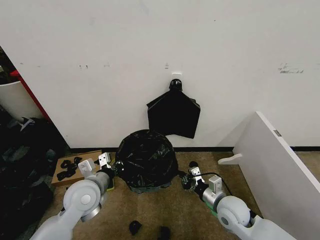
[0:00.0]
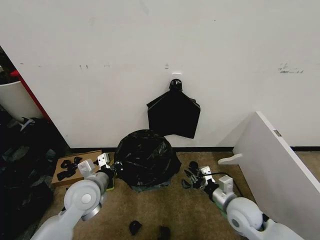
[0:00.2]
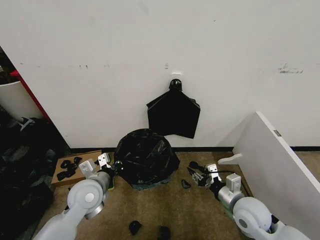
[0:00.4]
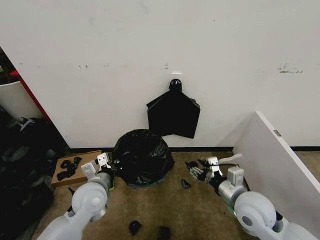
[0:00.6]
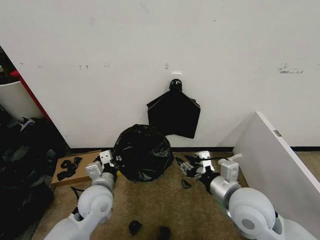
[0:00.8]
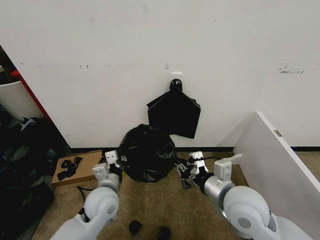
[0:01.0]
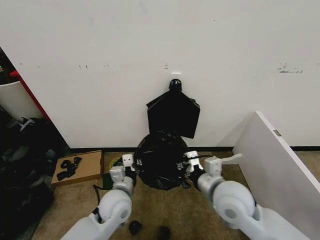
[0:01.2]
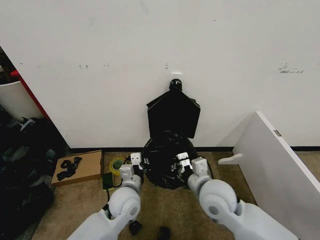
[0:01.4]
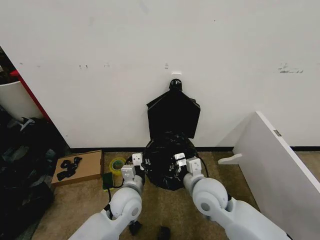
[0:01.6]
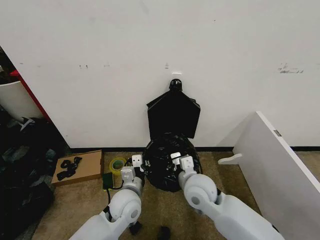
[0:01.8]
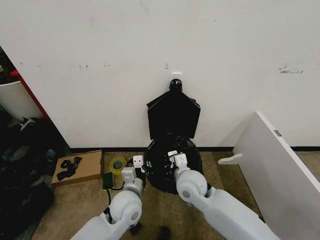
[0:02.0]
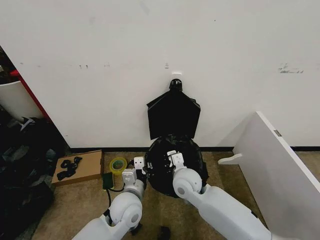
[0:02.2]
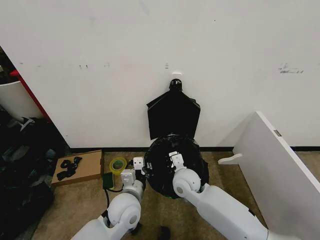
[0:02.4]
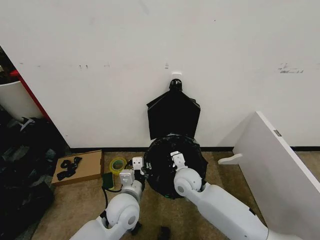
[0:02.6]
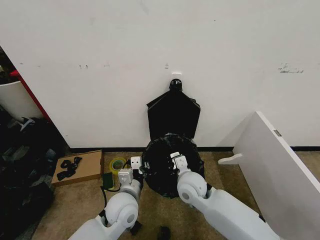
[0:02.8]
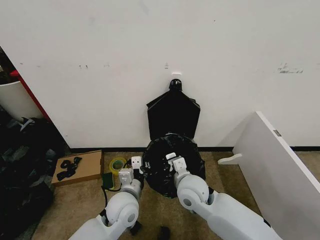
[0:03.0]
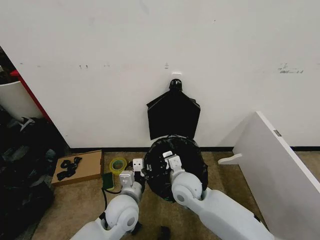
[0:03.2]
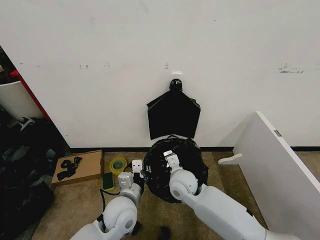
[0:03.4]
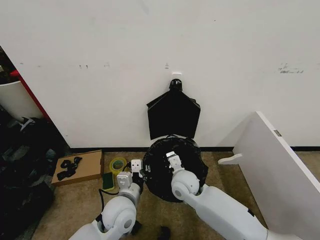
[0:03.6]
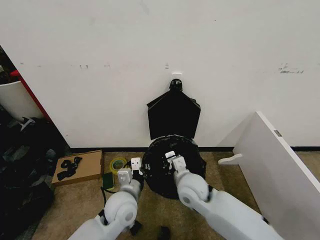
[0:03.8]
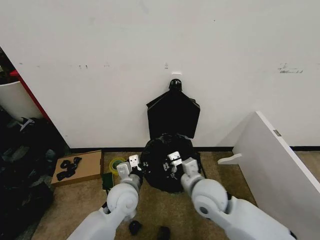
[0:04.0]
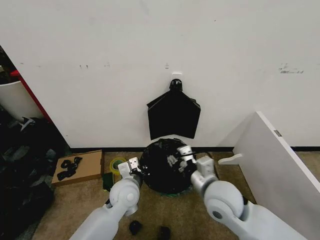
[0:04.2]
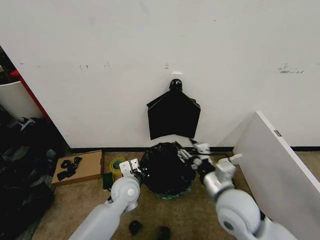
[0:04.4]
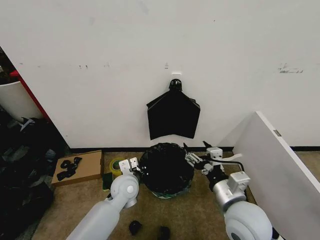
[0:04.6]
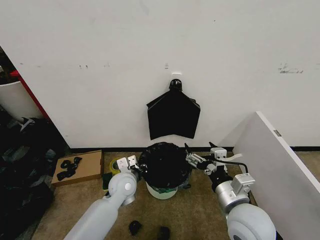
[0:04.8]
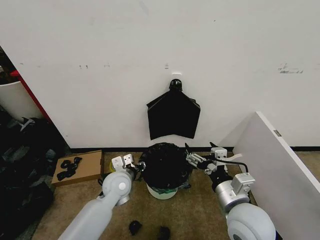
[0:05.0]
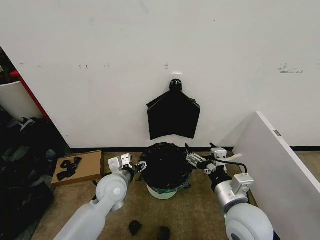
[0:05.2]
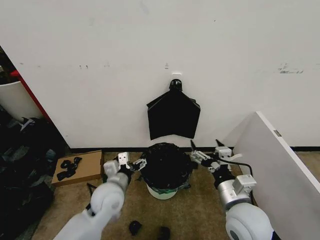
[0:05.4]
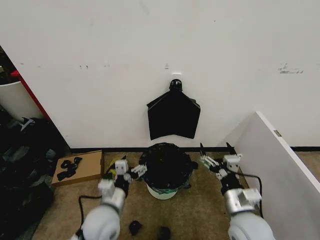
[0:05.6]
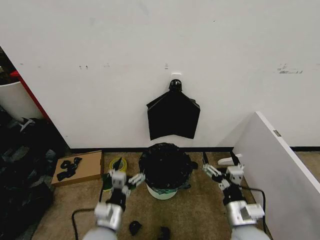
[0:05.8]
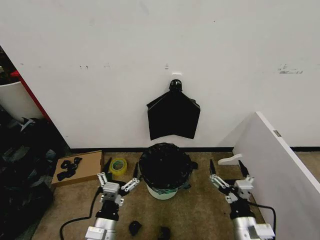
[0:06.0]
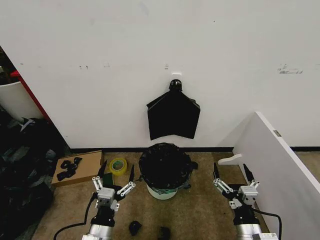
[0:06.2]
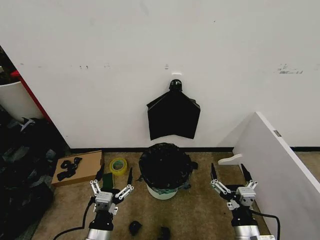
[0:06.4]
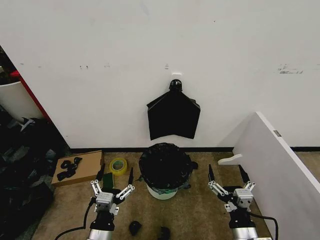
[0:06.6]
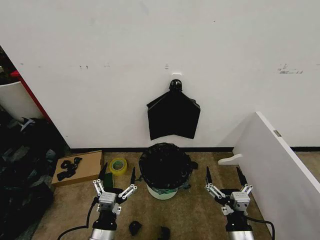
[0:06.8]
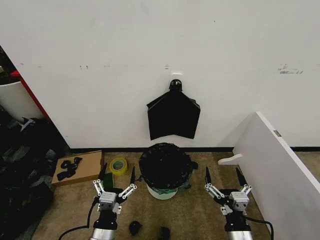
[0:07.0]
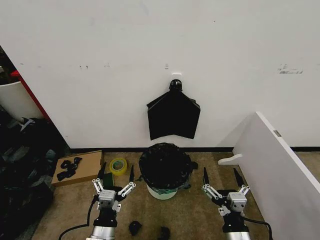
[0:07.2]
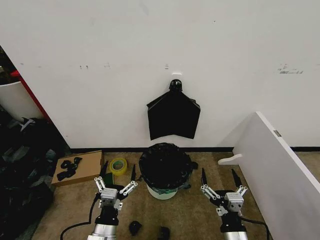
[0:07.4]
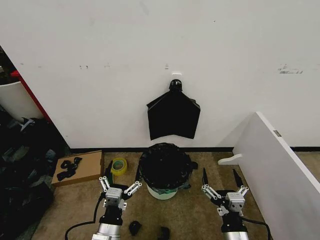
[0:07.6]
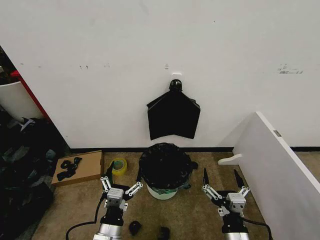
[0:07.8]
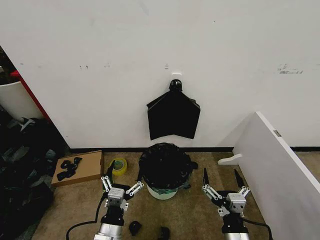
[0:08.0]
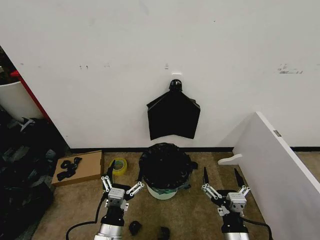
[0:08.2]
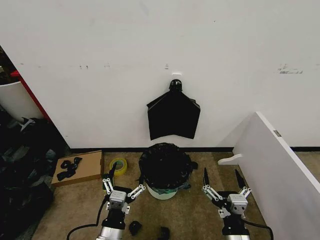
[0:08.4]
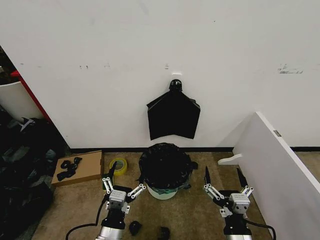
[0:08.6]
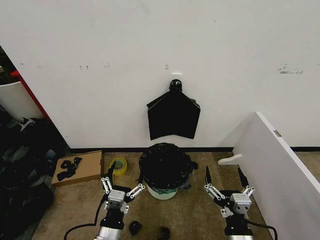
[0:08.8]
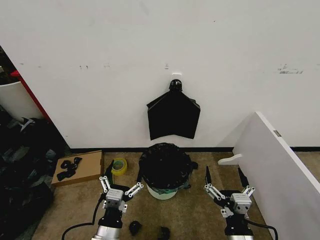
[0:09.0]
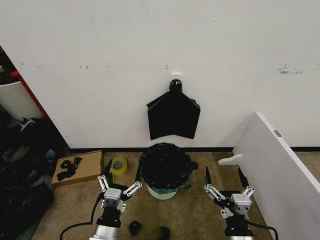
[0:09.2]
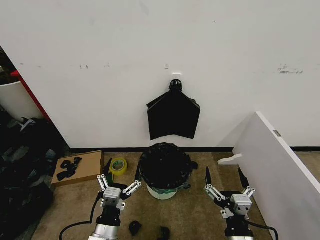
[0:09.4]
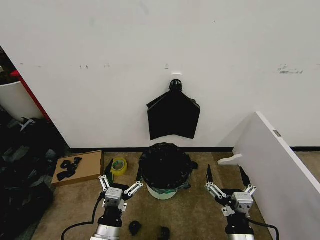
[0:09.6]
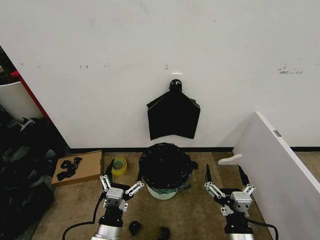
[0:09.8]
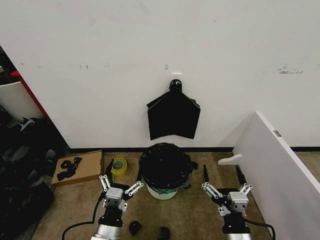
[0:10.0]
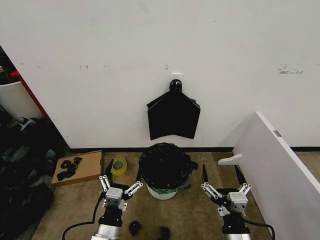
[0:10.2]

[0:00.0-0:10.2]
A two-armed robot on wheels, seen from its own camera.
Task of the whole recording: Place the garbage bag over the trash bin.
0:00.0 to 0:01.4: The right gripper shifts some 15 cm upward and to the left, and opens, then closes again. Meanwhile the left gripper heads to the right and downward, covering approximately 10 cm.
0:01.4 to 0:03.0: The right gripper shifts approximately 5 cm to the left.
0:03.0 to 0:04.4: The left gripper travels forward by roughly 5 cm, while the right gripper goes approximately 10 cm to the right, backward and upward, and opens up.
0:04.4 to 0:05.8: The left gripper moves backward, about 15 cm, and opens, while the right gripper moves downward and backward, about 10 cm, and opens up.
0:05.8 to 0:07.2: The right gripper is displaced backward by roughly 5 cm.
0:07.2 to 0:08.8: The grippers move only a little.
0:08.8 to 0:10.2: The two grippers keep their place.
